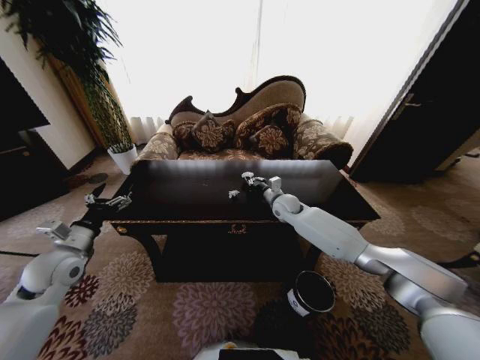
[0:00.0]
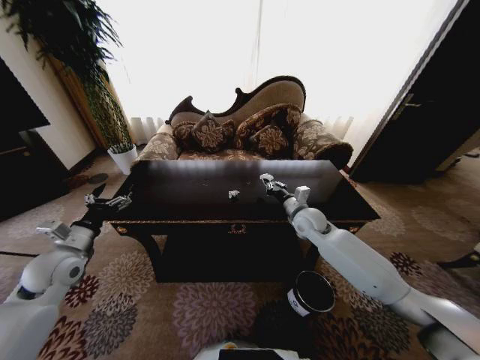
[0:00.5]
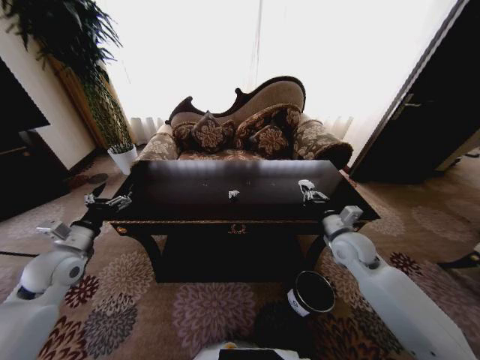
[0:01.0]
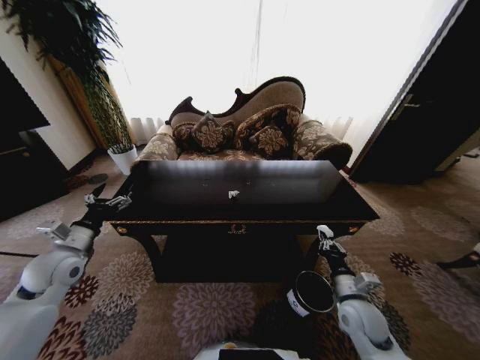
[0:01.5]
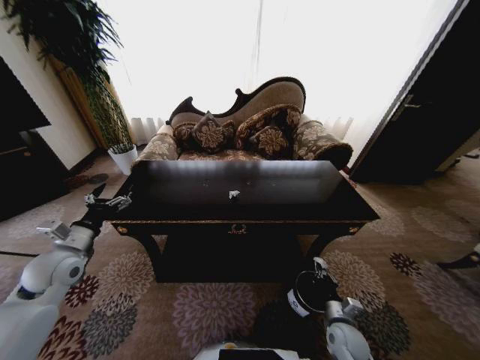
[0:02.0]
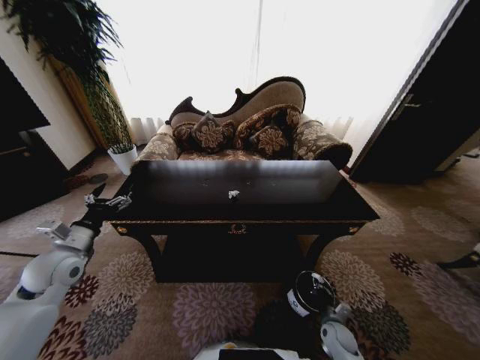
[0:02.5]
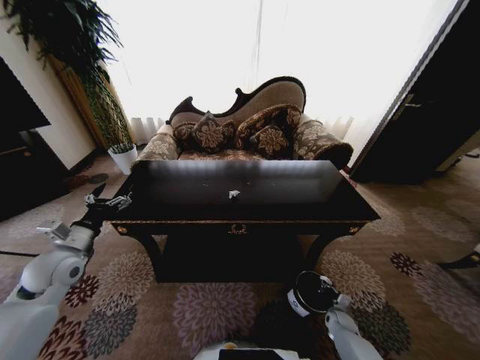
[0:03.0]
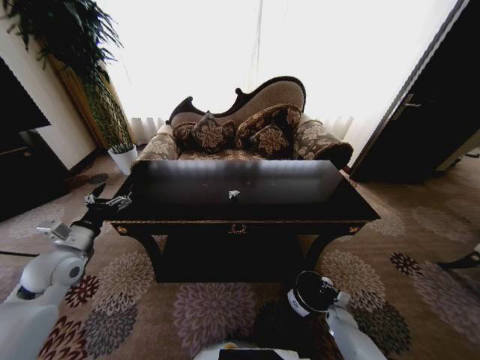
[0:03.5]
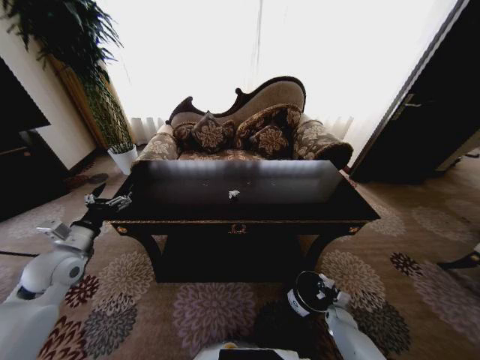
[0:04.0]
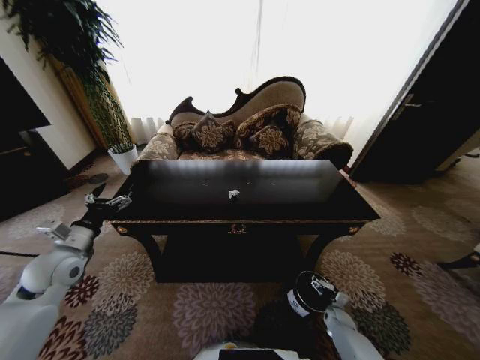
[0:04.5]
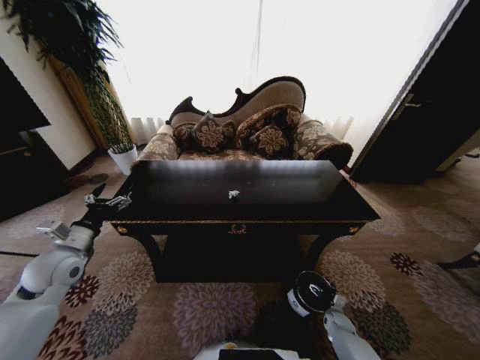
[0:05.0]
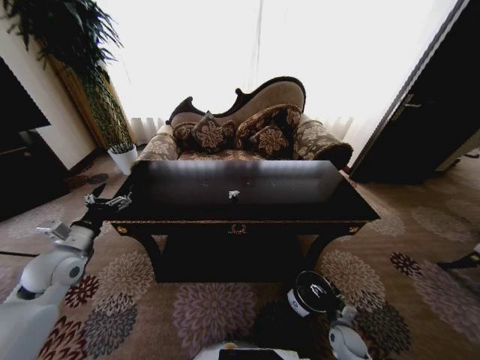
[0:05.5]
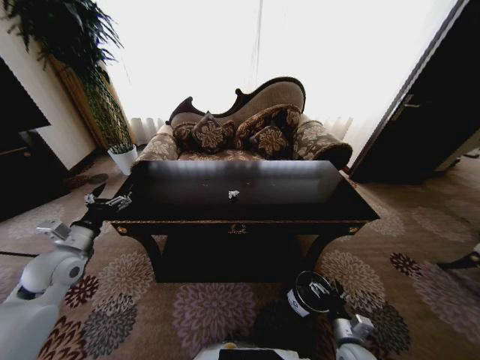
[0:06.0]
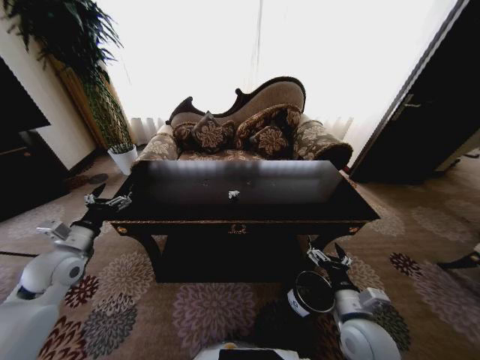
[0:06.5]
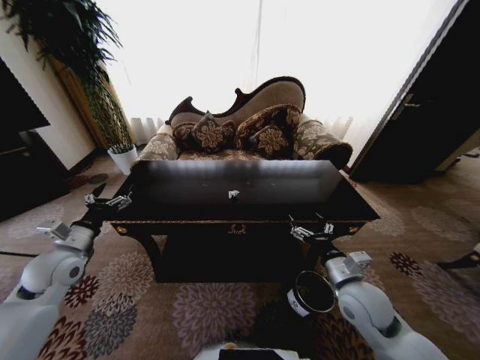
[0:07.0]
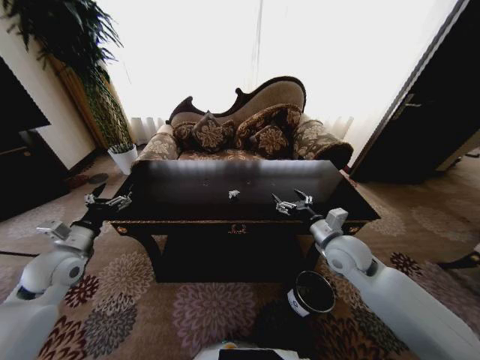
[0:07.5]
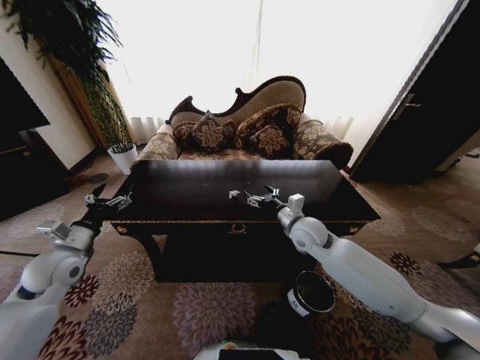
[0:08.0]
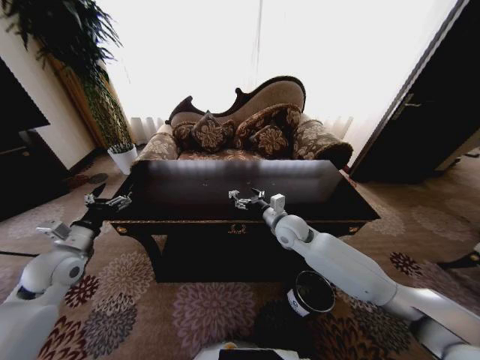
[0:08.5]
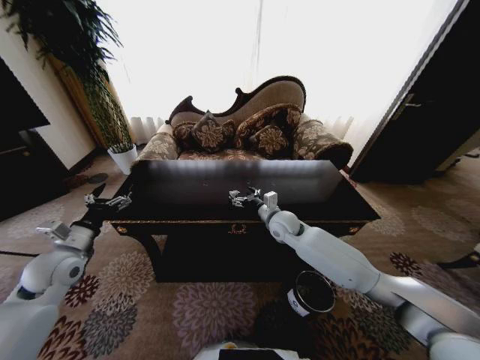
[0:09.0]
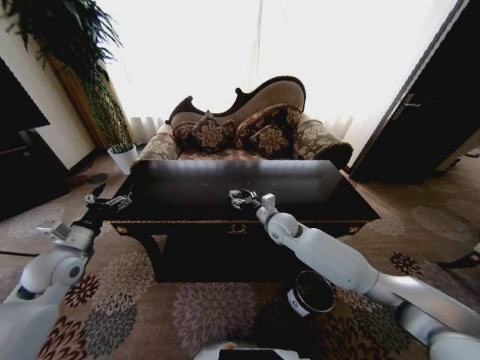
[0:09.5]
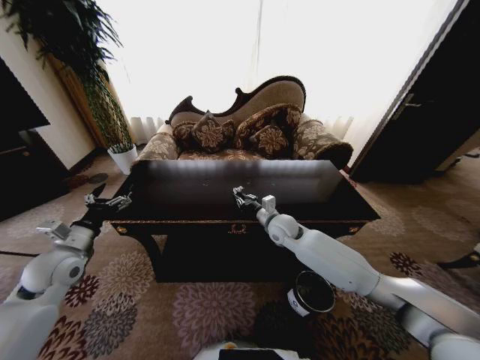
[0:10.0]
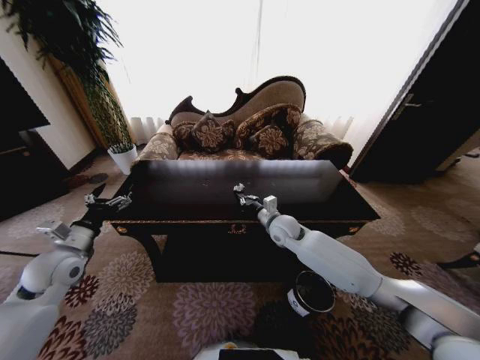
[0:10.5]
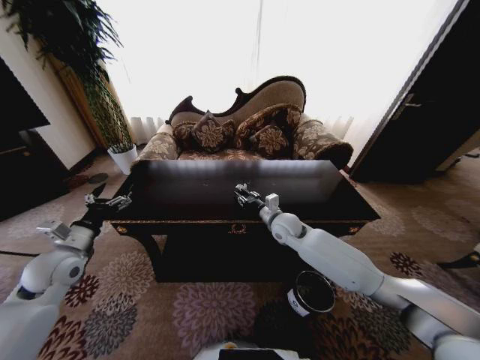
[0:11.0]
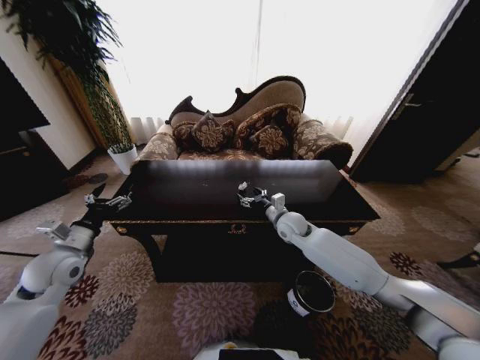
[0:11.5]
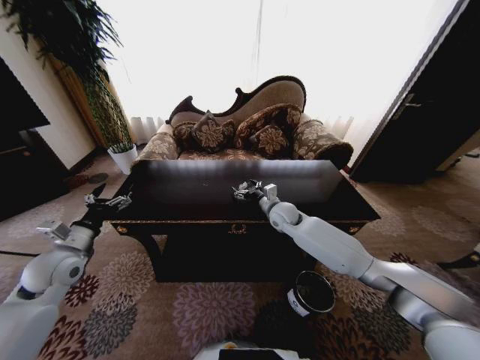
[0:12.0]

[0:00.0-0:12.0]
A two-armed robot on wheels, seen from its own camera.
Task of the whole recording: Move to the front of the table and place the trash on the table into the trash bin.
0:00.0 to 0:02.0: The right gripper goes about 40 cm backward and downward.
0:02.0 to 0:04.0: The right gripper shifts some 20 cm downward, to the right and forward, and opens its fingers.
0:04.0 to 0:06.0: The right gripper goes some 25 cm upward, backward and to the left, and opens.
0:06.0 to 0:08.0: The right gripper heads forward, upward and to the left, covering roughly 35 cm.
0:08.0 to 0:10.0: The right gripper heads to the left and forward, covering approximately 5 cm, and closes up.
0:10.0 to 0:12.0: The right gripper opens up.

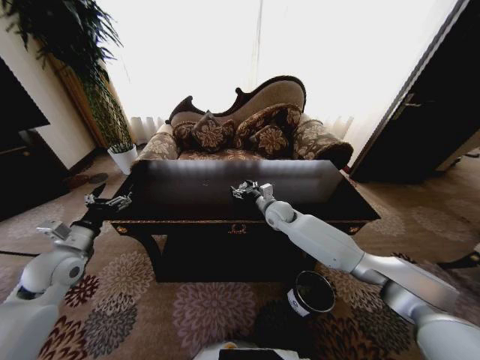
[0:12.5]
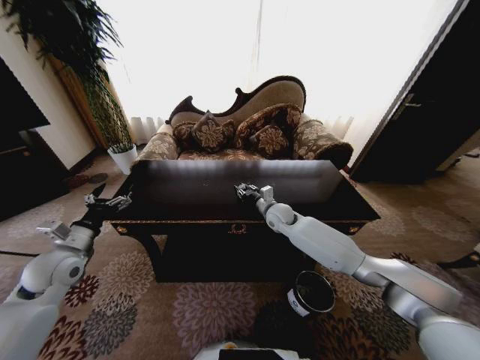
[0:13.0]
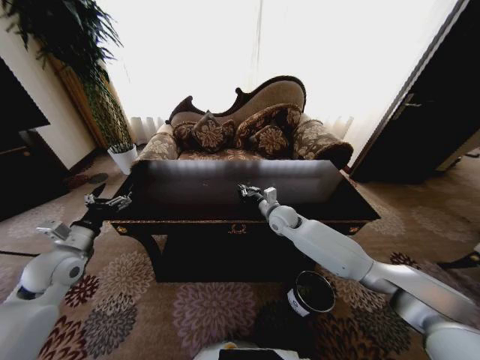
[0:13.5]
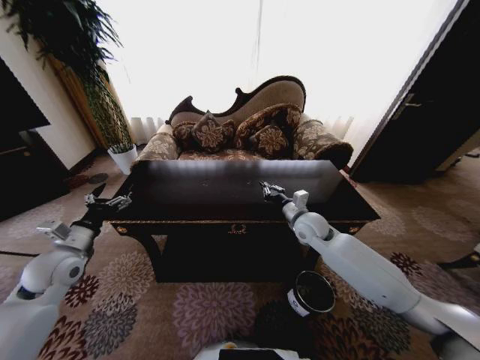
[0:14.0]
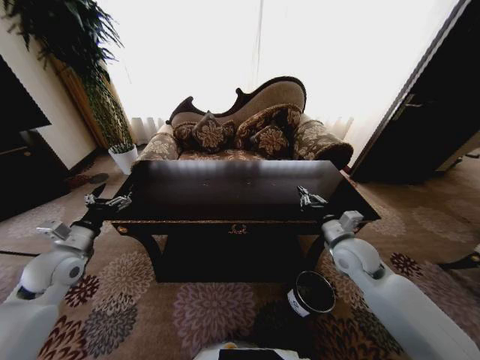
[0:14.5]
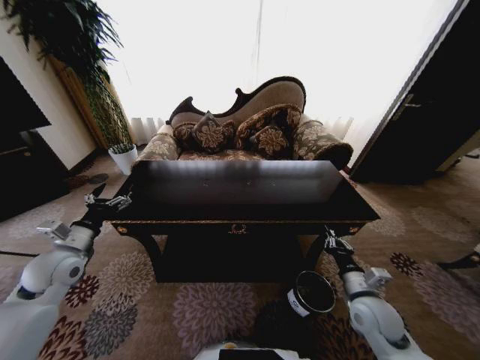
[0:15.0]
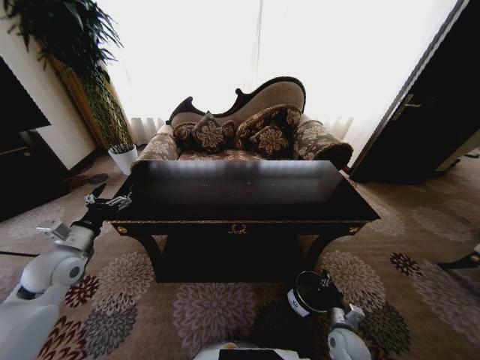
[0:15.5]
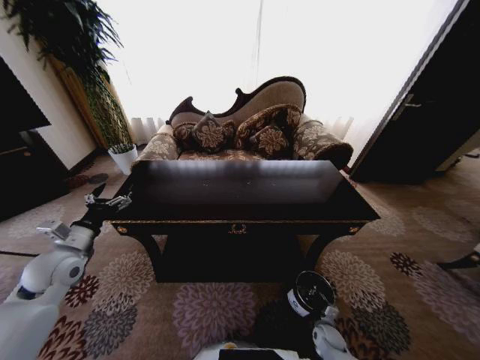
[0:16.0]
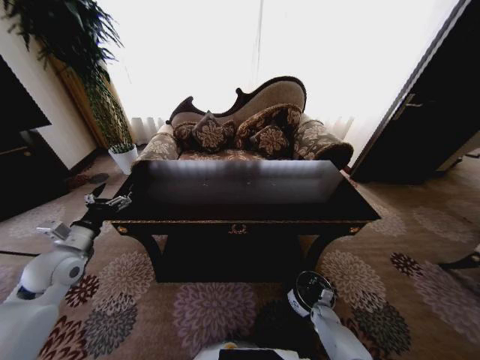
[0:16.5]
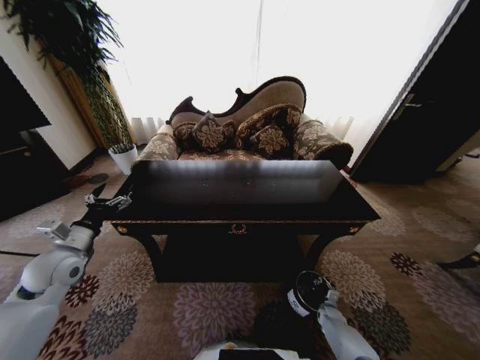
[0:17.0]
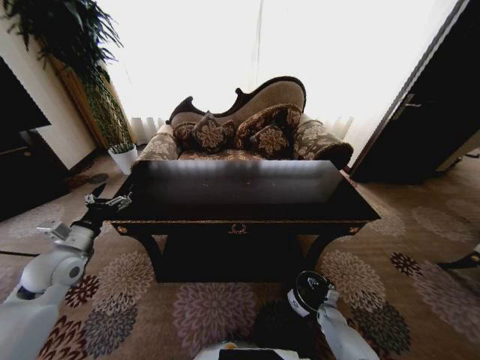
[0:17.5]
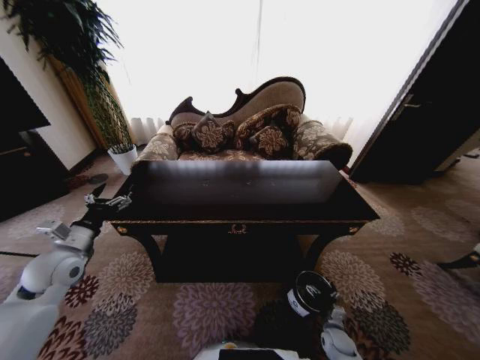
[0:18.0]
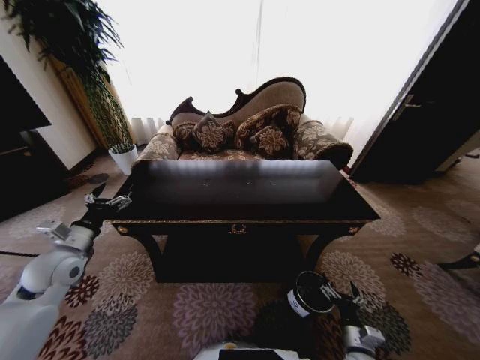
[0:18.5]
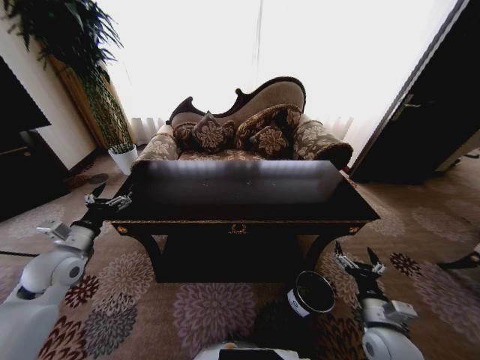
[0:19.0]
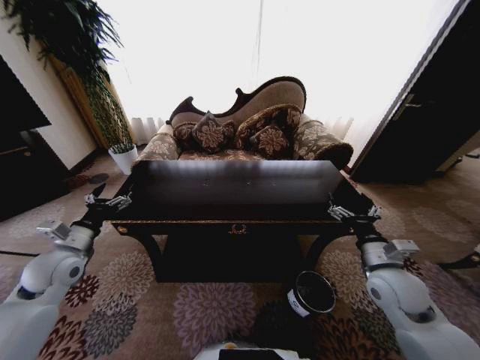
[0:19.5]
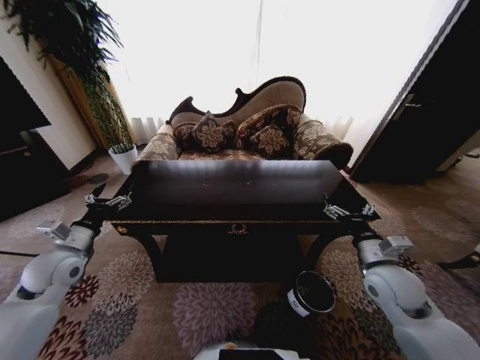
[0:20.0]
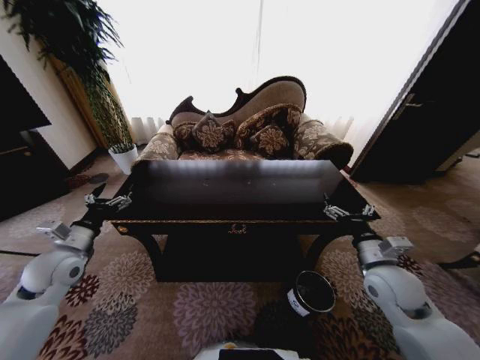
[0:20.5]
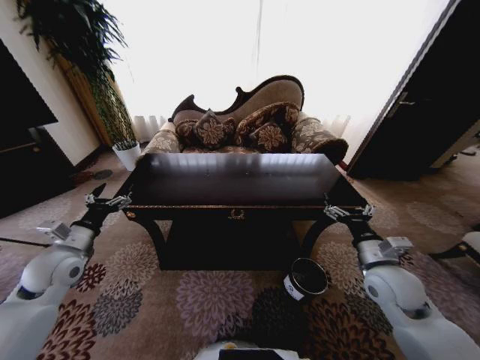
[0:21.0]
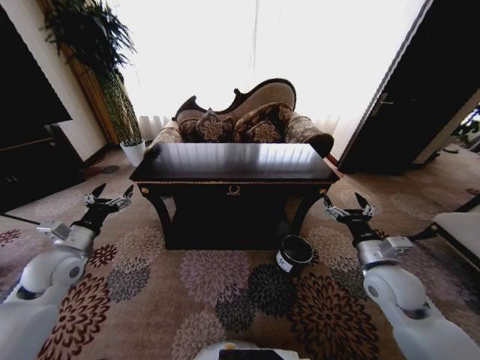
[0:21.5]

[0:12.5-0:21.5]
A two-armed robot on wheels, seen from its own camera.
Task of the whole recording: Move to the front of the table and place the trash on the table into the trash bin.
0:12.5 to 0:14.5: The right gripper travels backward and to the right by about 25 cm, and closes its fingers.
0:14.5 to 0:17.0: The right gripper goes roughly 40 cm downward.
0:17.0 to 0:19.5: The right gripper heads upward, covering some 40 cm, and opens its fingers.
